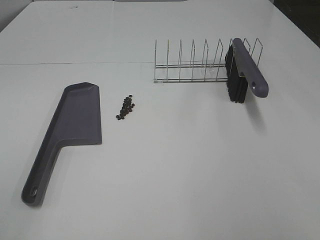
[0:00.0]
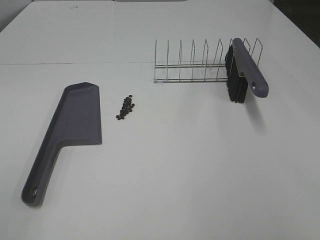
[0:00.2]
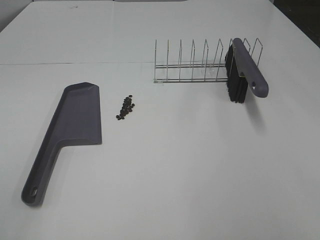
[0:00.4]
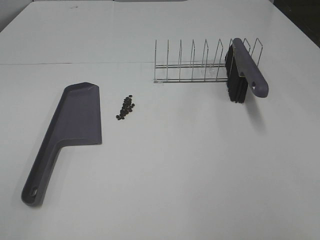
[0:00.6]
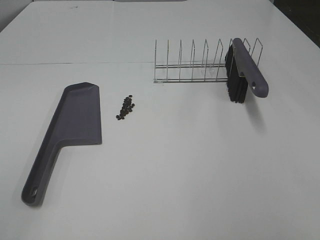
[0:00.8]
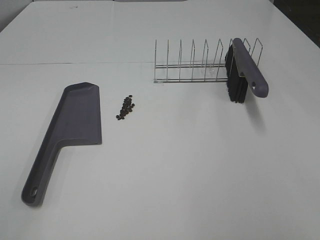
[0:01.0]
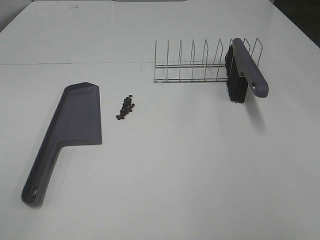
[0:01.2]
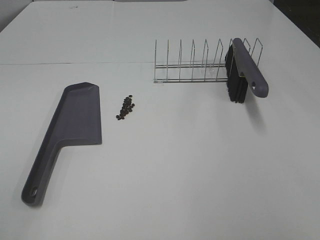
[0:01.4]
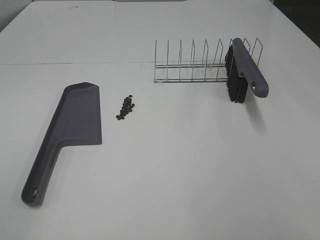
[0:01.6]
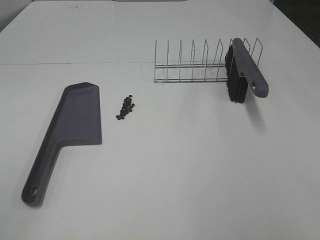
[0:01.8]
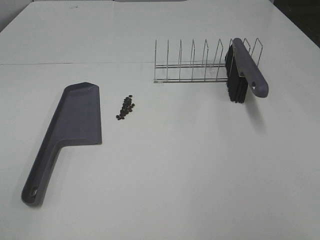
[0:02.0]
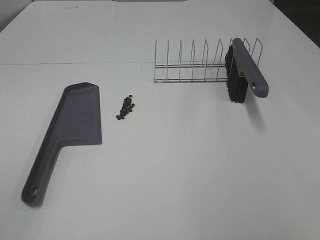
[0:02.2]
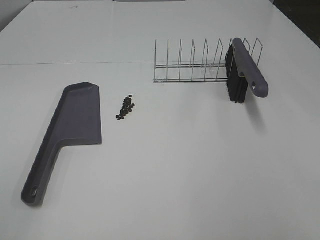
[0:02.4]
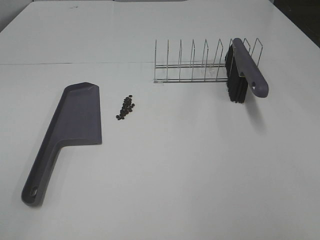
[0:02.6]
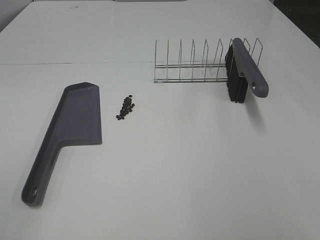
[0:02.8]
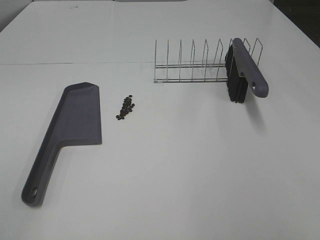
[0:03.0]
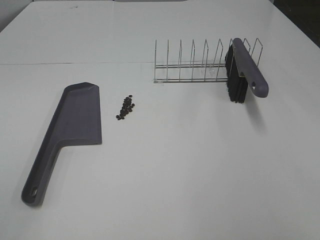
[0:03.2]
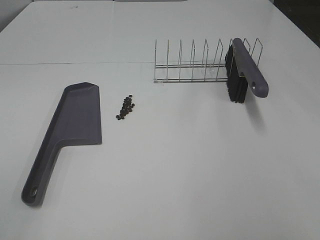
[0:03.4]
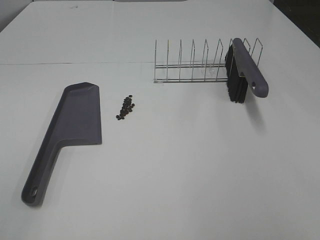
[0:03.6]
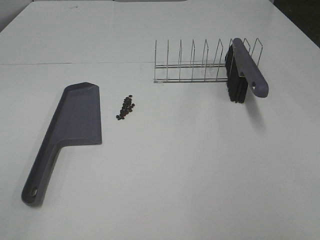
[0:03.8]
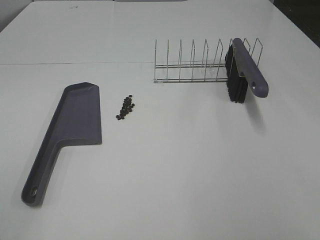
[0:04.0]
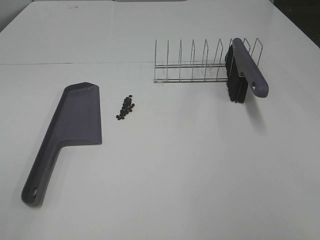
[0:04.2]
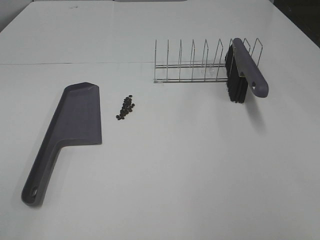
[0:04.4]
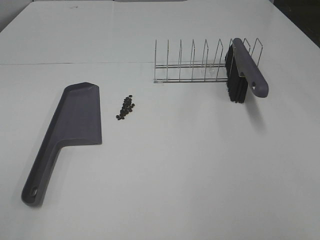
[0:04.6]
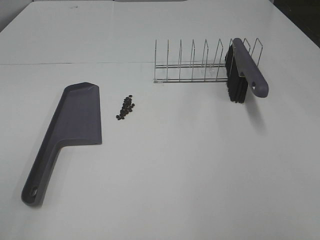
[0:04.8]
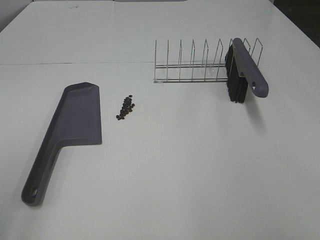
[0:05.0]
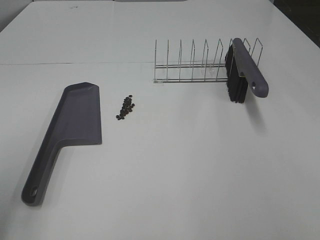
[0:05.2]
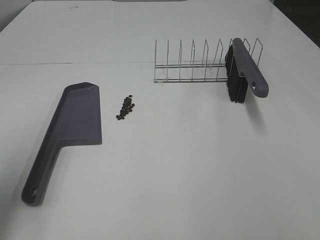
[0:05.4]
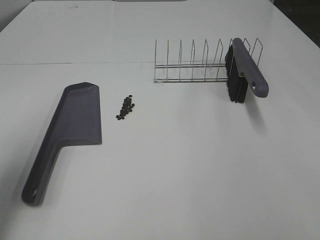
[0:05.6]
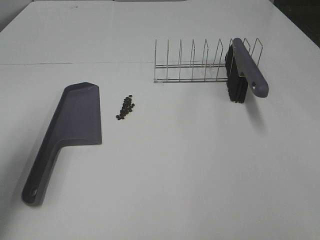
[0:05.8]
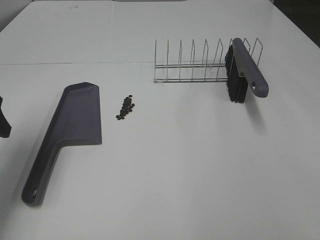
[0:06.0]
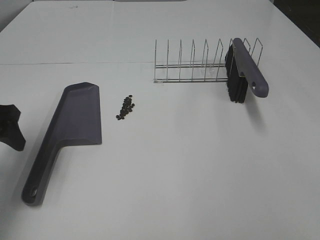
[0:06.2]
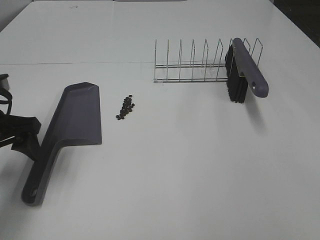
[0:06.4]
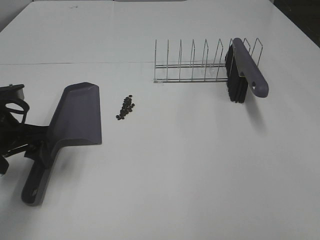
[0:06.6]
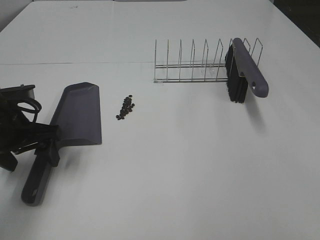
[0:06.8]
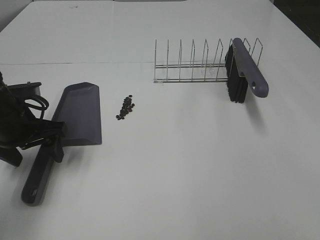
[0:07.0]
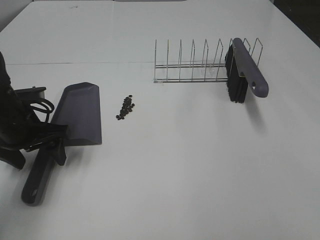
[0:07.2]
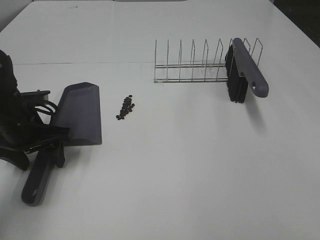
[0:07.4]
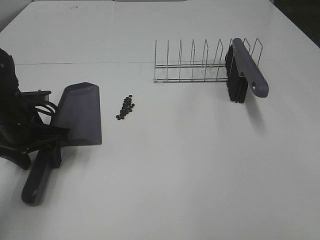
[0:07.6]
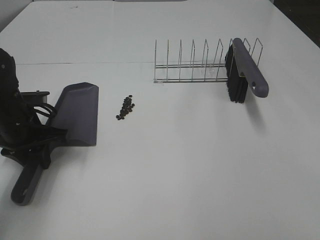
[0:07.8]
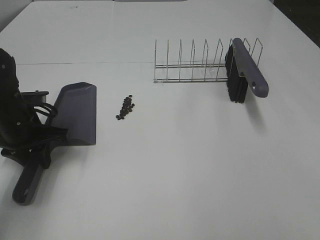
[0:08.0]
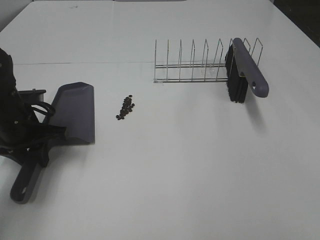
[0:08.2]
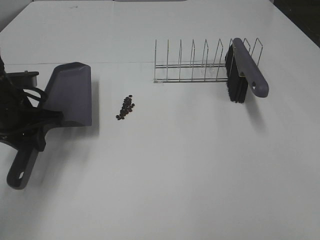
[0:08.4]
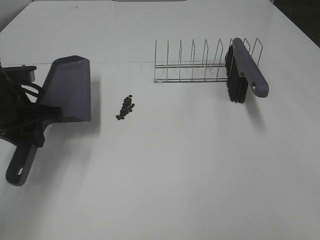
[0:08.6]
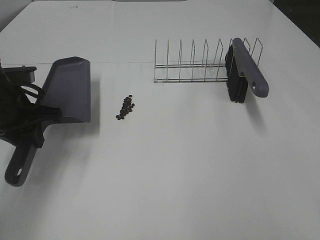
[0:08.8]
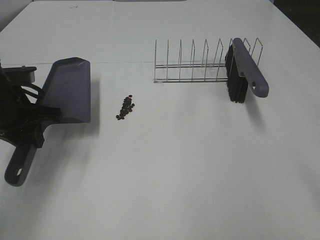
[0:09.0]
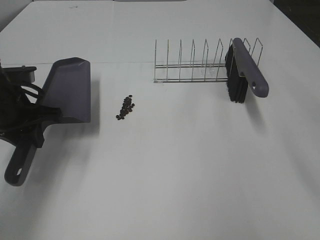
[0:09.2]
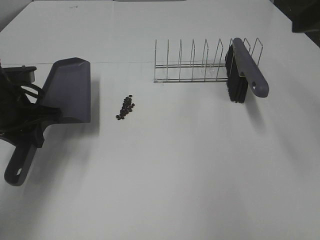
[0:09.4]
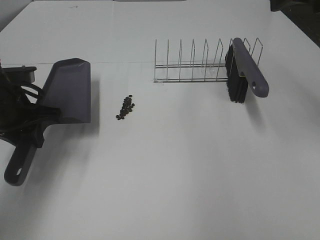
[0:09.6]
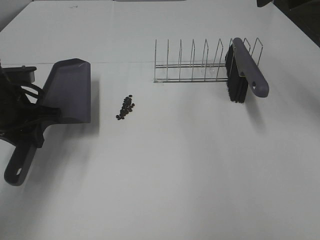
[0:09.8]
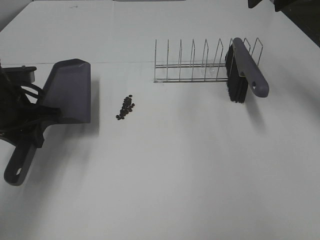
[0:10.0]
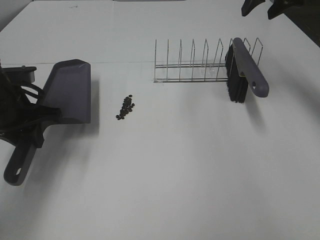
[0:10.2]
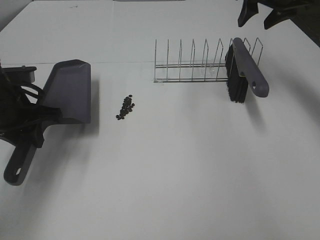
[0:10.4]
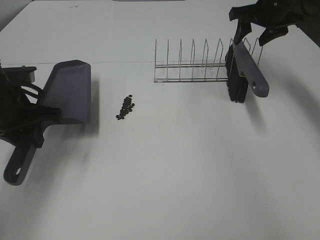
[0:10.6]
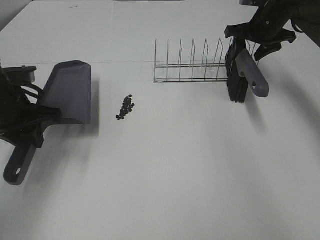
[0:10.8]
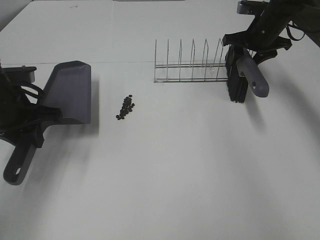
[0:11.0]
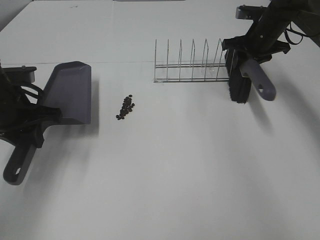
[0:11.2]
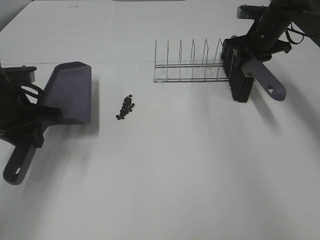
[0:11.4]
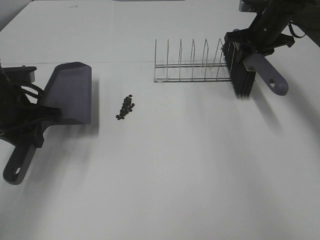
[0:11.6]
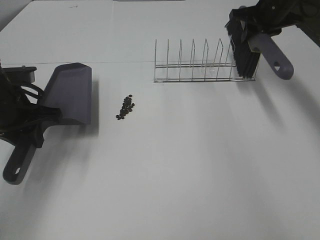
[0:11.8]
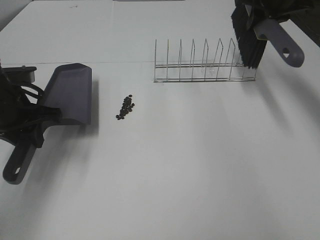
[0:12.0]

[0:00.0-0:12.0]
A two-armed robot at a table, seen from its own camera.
Task of the whole recording: Sweep Coffee Bean.
Step, 0:00.0 to 0:07.8: Left hand: grab the dustpan.
Step, 0:08.6 to 0:11.2: Right hand:grab the broom.
0:00.0 to 0:04.4: Both grippers stay put.
0:04.4 to 0:06.0: The left gripper goes roughly 25 cm forward.
0:06.0 to 0:07.6: The left gripper shifts about 15 cm downward, to the right and forward, and closes.
0:07.6 to 0:09.0: The left gripper closes its fingers.
0:09.0 to 0:10.4: The right gripper shifts some 40 cm forward, and closes up.
0:10.4 to 0:12.0: The right gripper travels downward and back again, some 10 cm each way, and closes its fingers.

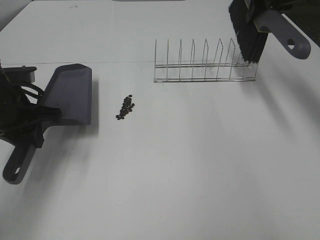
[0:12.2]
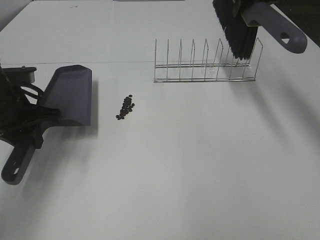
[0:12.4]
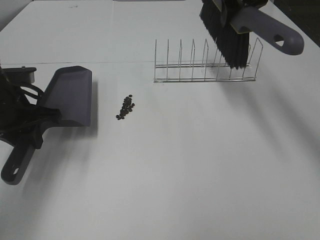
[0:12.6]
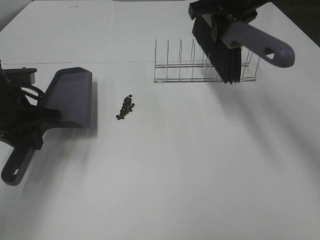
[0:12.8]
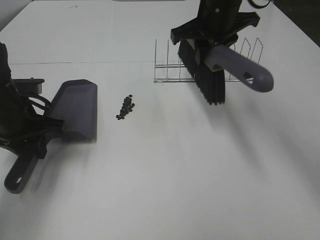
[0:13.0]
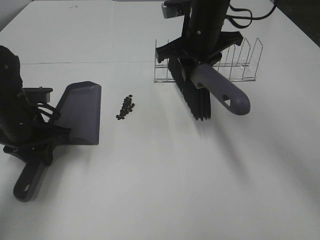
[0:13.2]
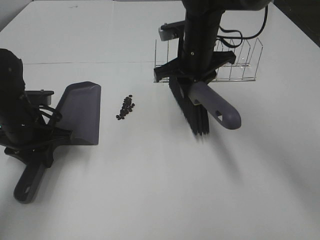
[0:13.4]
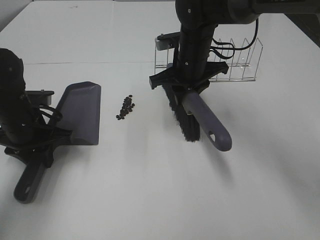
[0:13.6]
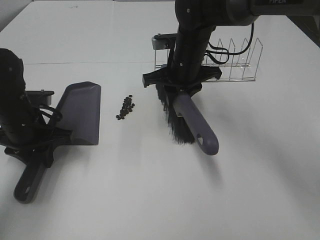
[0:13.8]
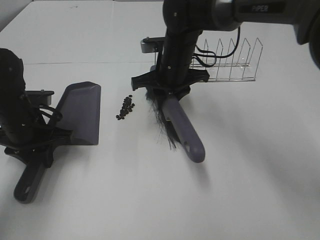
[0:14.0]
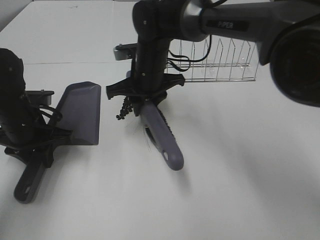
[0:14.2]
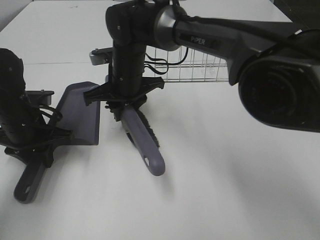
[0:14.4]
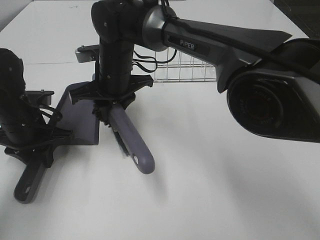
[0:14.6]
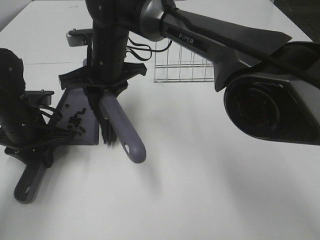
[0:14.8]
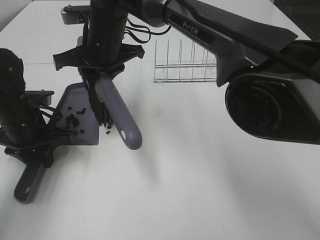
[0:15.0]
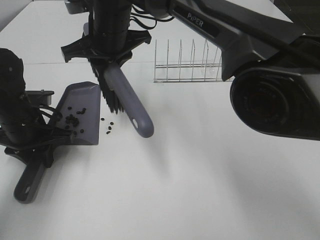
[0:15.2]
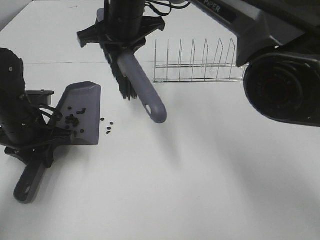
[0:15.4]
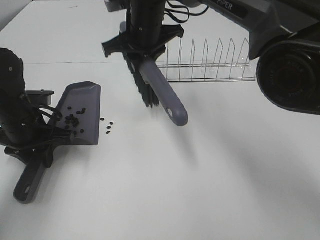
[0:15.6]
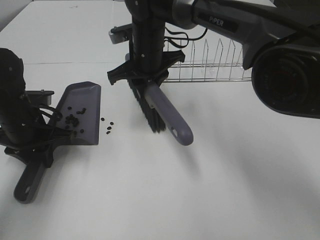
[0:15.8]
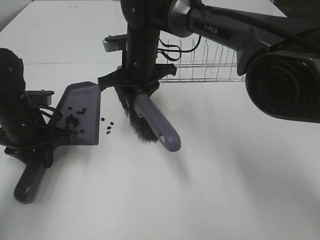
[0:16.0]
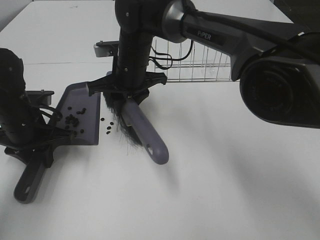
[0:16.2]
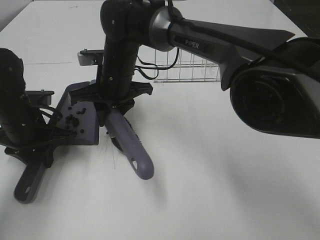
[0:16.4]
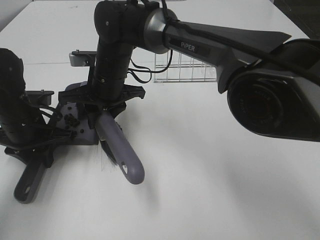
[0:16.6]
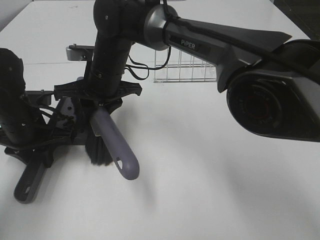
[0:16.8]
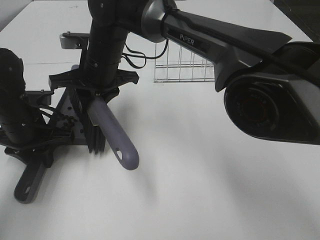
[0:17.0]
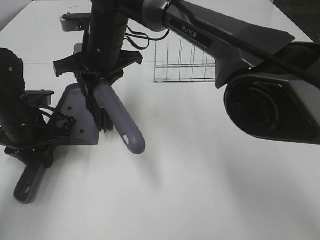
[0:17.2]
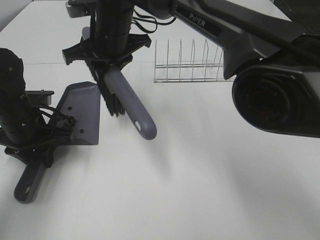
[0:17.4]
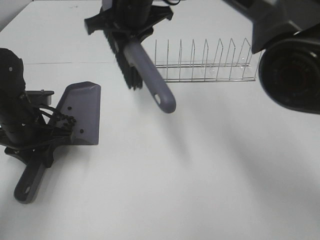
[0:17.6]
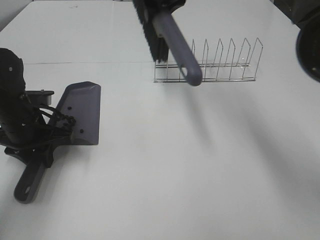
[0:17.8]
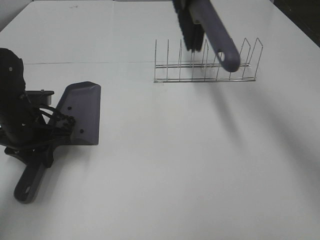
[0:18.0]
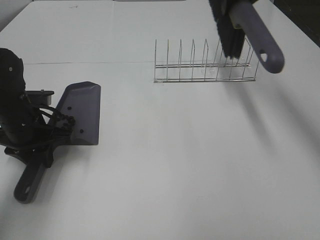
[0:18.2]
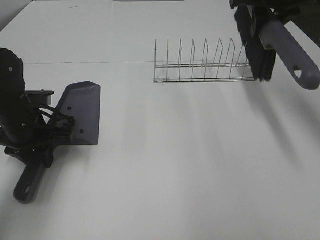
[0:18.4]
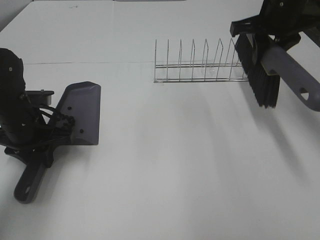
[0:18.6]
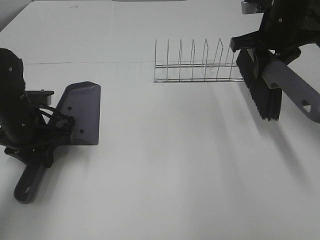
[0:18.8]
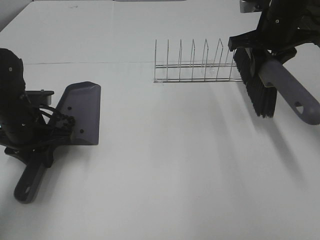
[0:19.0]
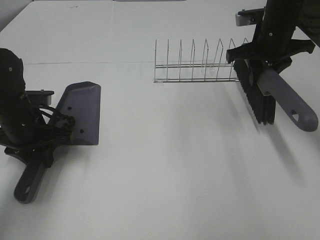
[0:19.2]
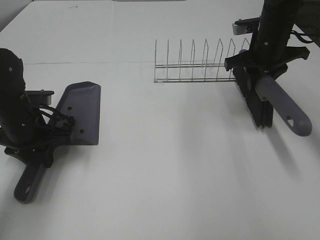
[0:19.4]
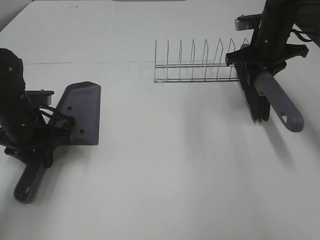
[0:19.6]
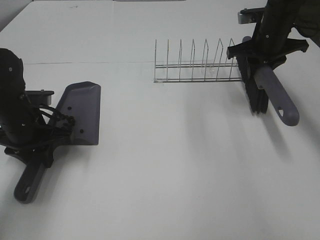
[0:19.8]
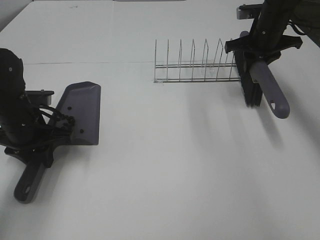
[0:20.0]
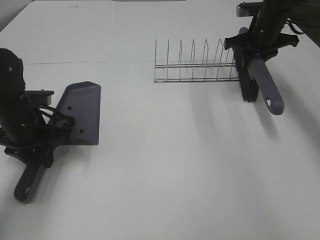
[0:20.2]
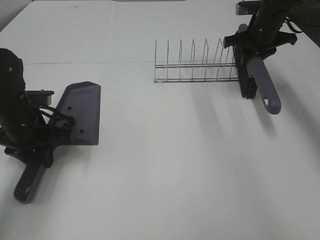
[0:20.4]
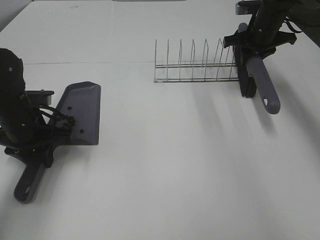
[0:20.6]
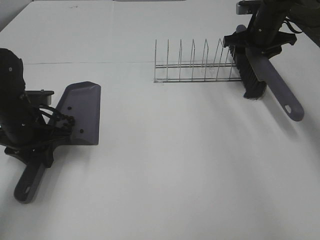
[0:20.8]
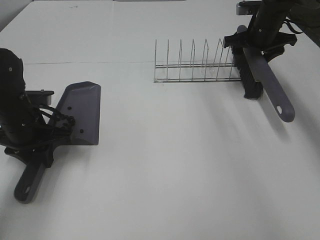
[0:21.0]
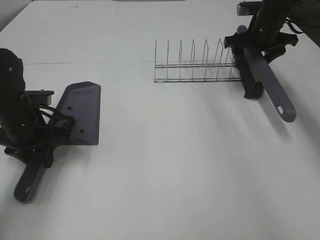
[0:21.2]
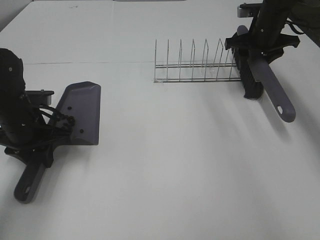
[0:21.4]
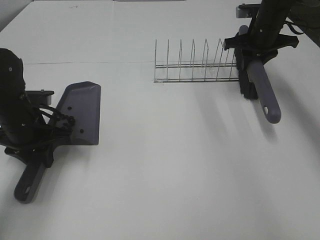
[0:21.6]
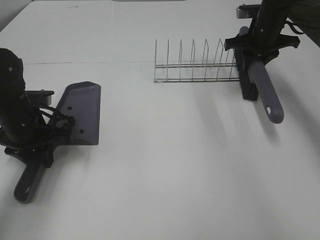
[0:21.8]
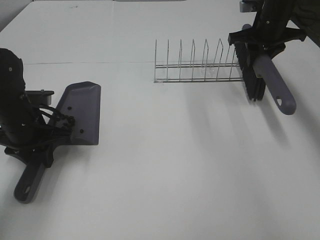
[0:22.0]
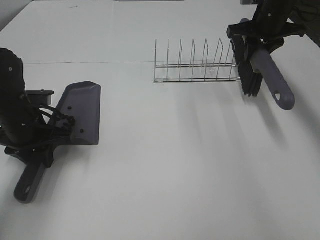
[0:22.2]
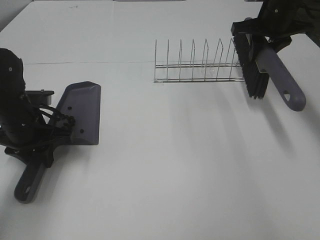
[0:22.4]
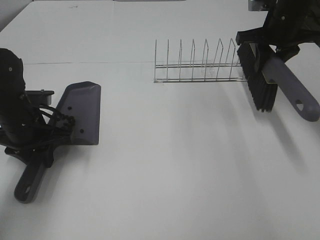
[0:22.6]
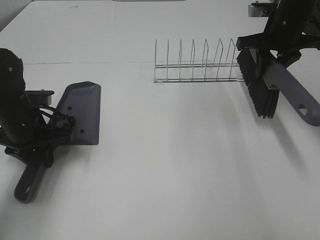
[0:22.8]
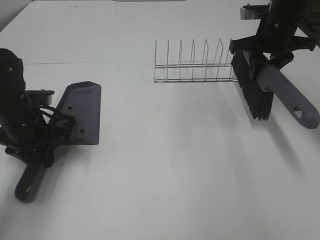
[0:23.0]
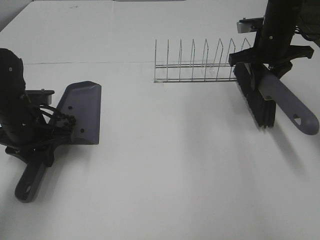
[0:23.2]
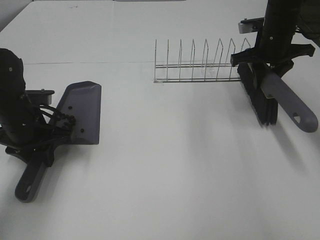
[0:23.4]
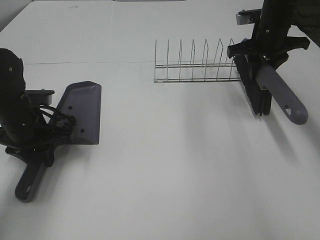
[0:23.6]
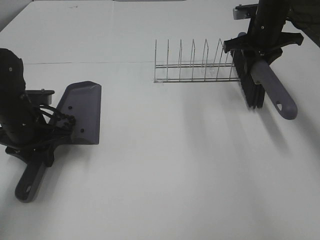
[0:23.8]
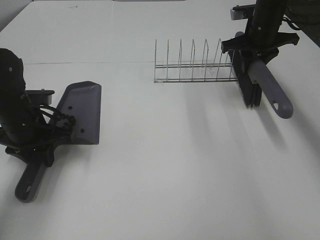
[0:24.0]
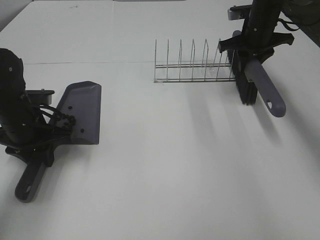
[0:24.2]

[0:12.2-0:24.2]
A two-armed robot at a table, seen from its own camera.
Task of the whole recording: Sweep Coffee Bean.
Step, 0:12.2 to 0:17.2: Right hand:sweep the coffee beans into the dustpan.
0:12.2 to 0:13.8: The left gripper goes about 5 cm downward; the right gripper travels to the left and downward by approximately 25 cm.
0:13.8 to 0:15.2: The right gripper moves to the left and upward, about 15 cm.
0:15.2 to 0:16.6: The right gripper moves downward, some 10 cm.
0:16.6 to 0:18.2: The right gripper is displaced to the right and upward by approximately 30 cm.
0:18.2 to 0:19.8: The right gripper moves downward and to the right, some 15 cm.
0:19.8 to 0:21.2: The right gripper moves about 5 cm, and opens.
0:21.2 to 0:22.6: The right gripper heads backward, covering roughly 5 cm, and closes.
0:22.6 to 0:24.2: The right gripper travels forward by some 5 cm.
